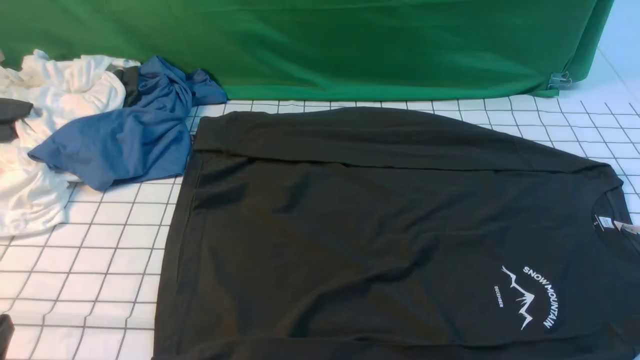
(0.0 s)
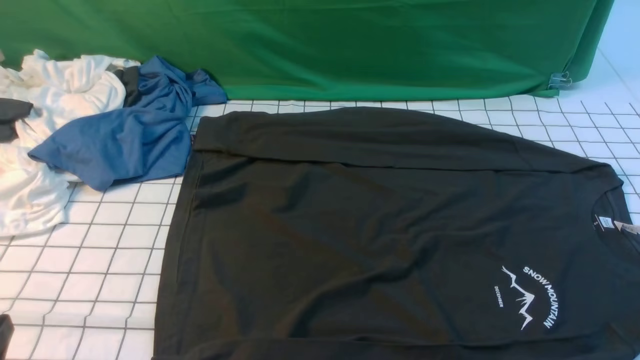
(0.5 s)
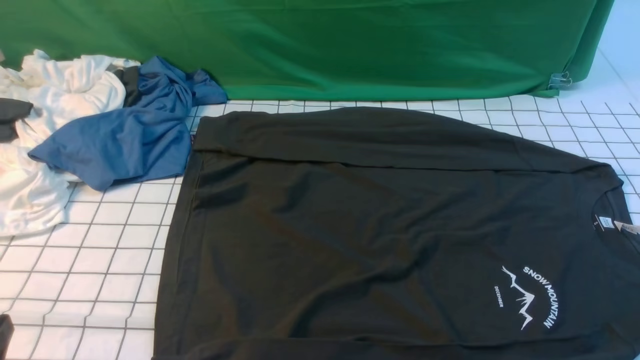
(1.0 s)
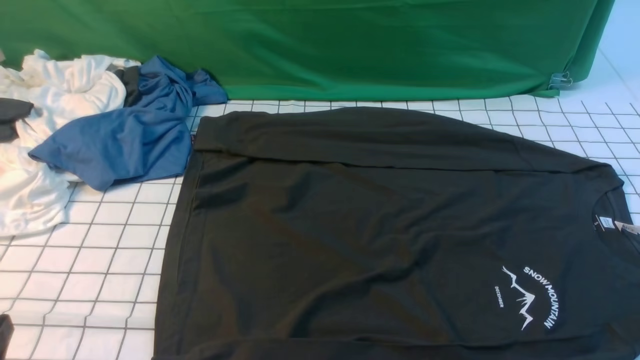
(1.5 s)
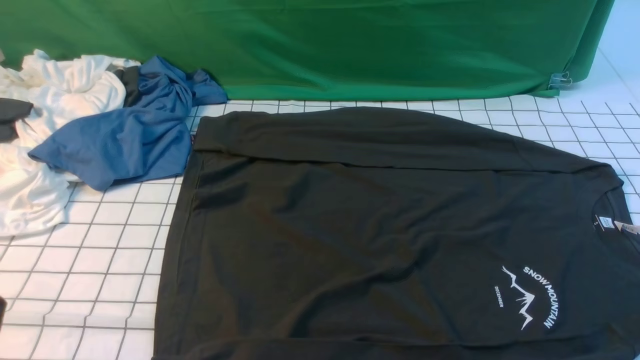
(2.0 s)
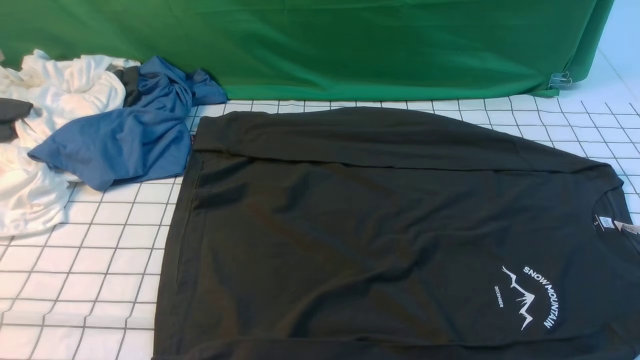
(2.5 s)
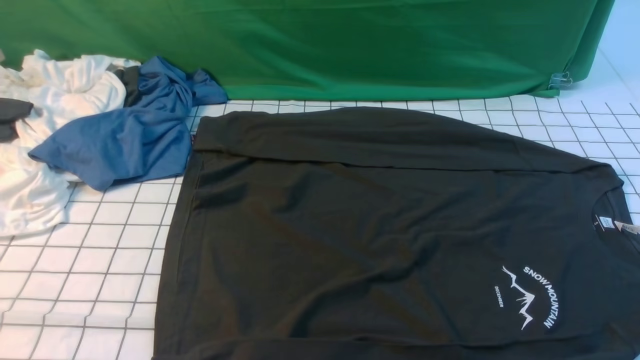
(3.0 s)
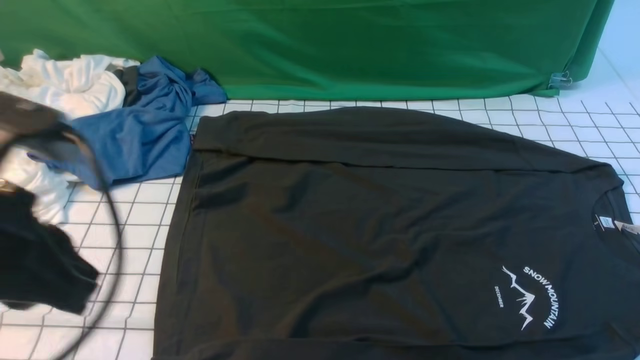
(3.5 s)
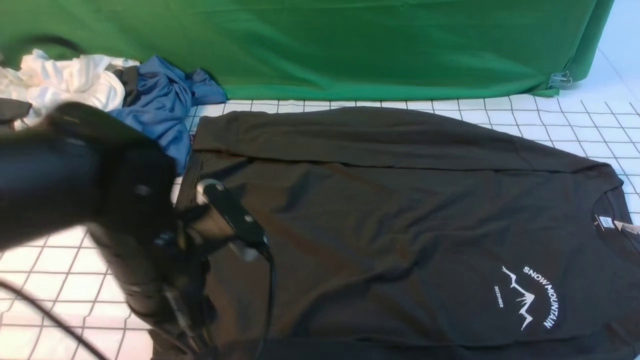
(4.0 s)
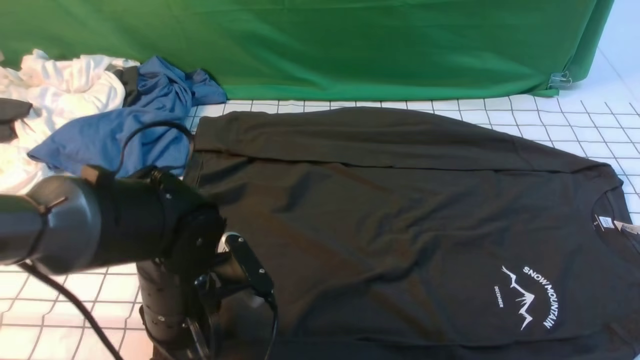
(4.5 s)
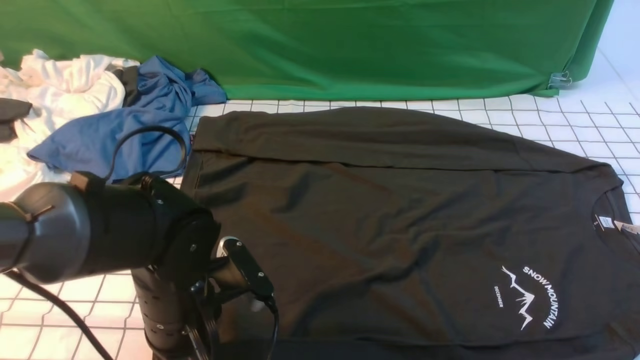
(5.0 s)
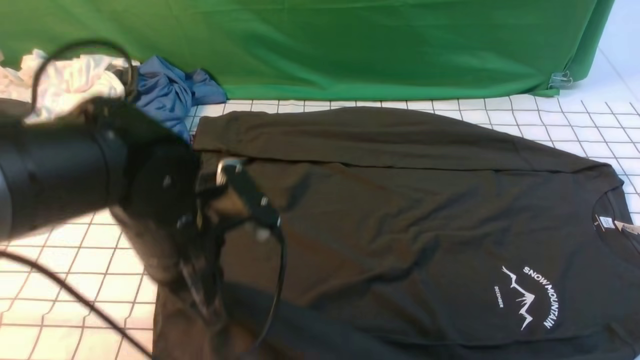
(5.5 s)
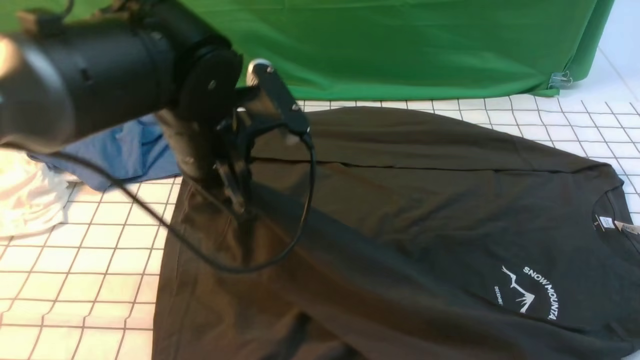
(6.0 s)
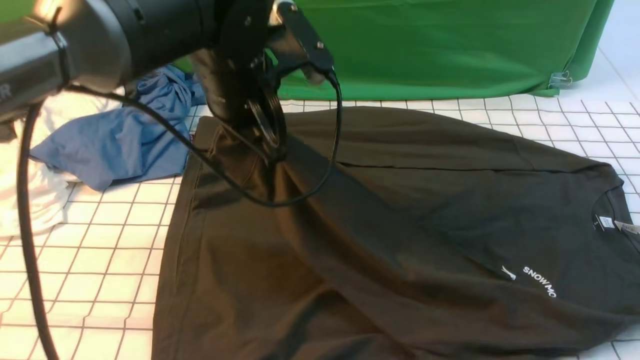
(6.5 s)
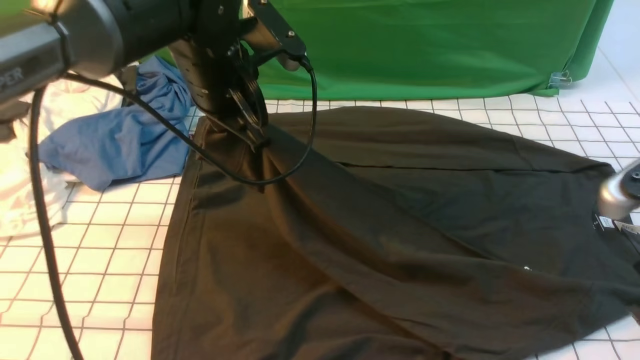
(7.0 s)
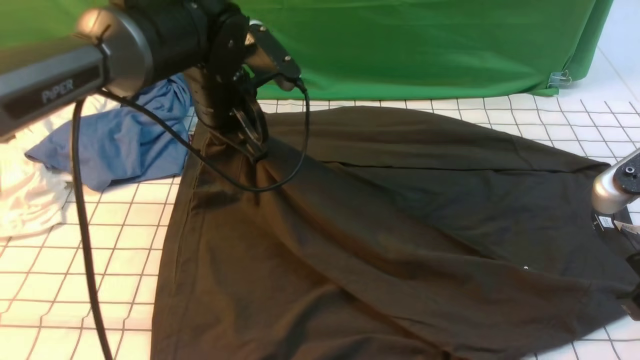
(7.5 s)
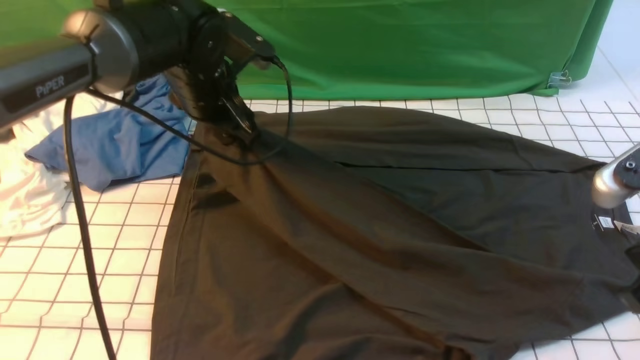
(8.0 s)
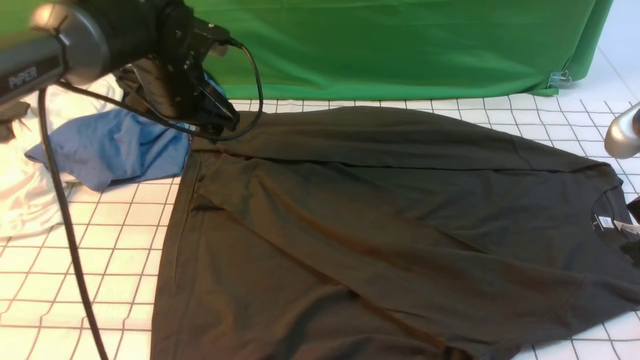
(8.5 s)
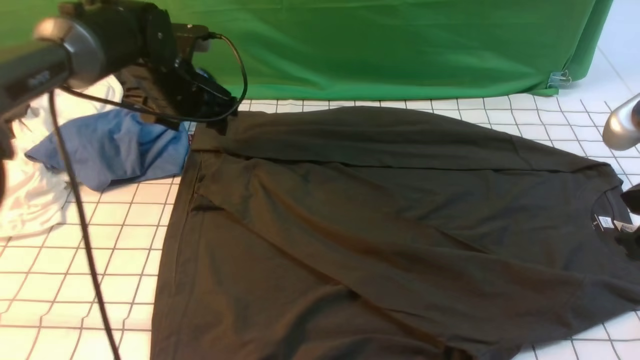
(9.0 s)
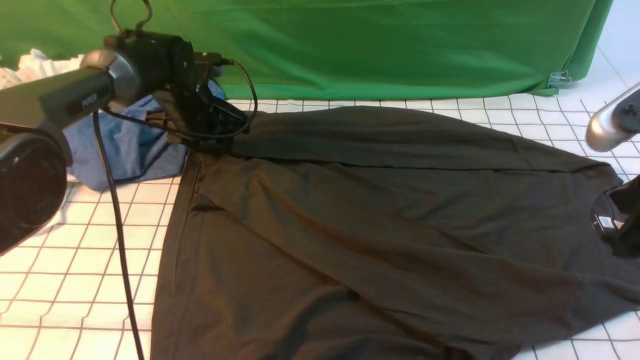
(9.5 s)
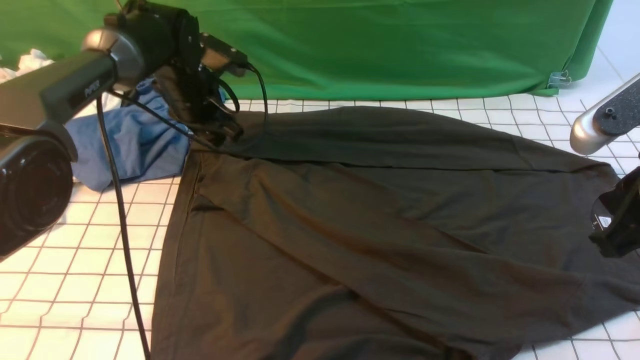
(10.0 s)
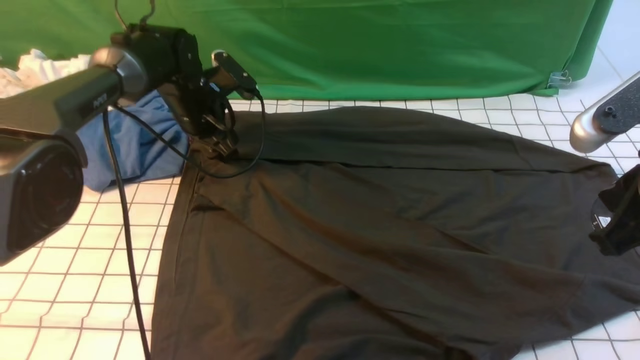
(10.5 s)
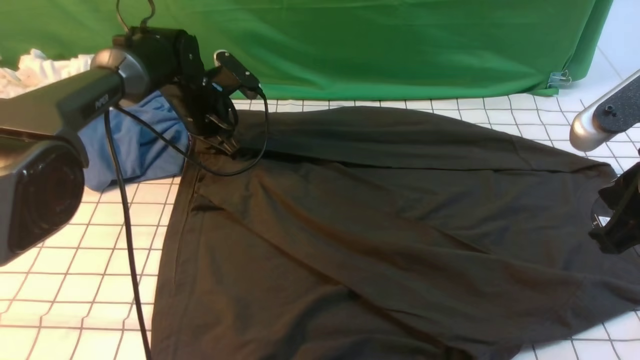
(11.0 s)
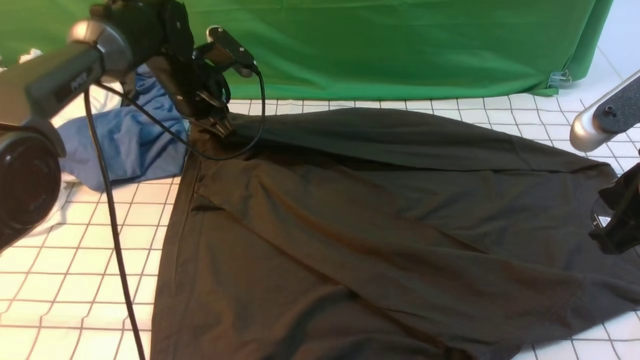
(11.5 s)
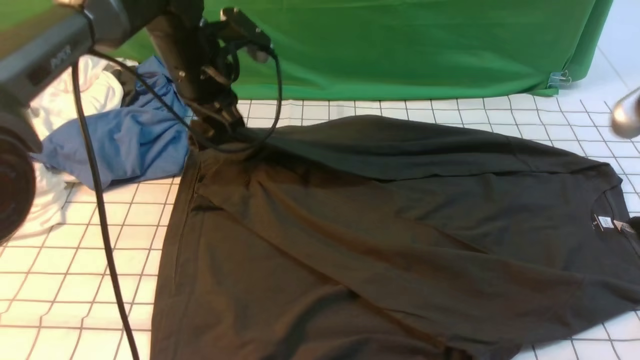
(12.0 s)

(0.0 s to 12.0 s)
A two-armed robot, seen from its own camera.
Step, 0.0 s - 5.0 s: use the left arm to clamp the cuff closest to it.
Step, 5.5 s - 8.0 s: use the left arm to drag and place the cuff at the centered position on the left edge of the fabric.
Step, 8.5 s - 11.0 s: use the left arm to clamp the cuff farthest from it.
2.0 s - 4.0 s: The left gripper travels forward and to the right by about 20 cm, and opens its fingers, while the right gripper is displaced upward by roughly 20 cm, and closes.
4.0 s - 6.0 s: The left gripper shifts roughly 10 cm forward and upward, and closes.
6.0 s - 8.0 s: The right gripper moves forward, some 5 cm. The left gripper goes about 10 cm forward, and opens up.
8.0 s - 10.0 s: The left gripper is displaced forward and downward by roughly 10 cm.
10.0 s - 12.0 s: The left gripper moves upward, some 10 cm, and closes up.

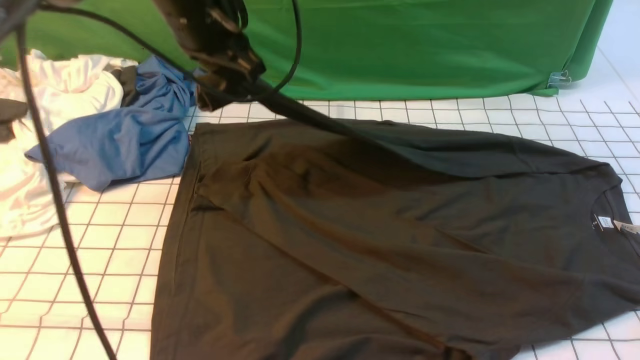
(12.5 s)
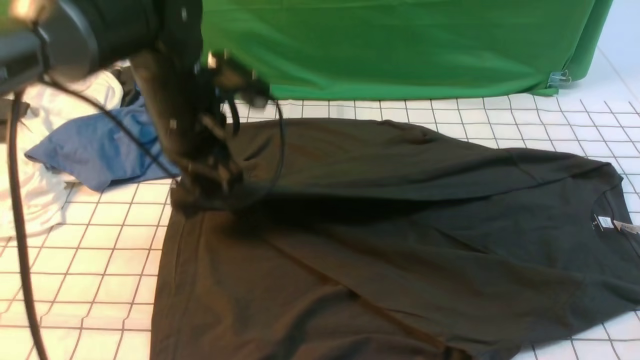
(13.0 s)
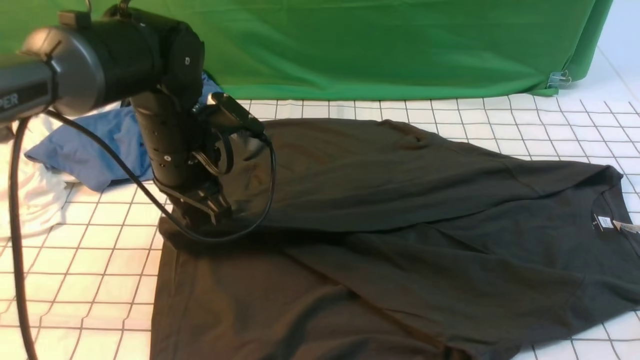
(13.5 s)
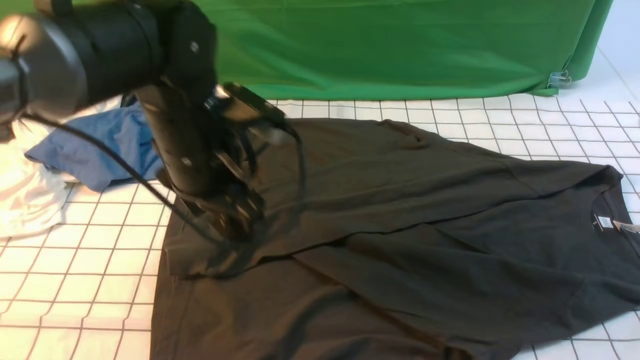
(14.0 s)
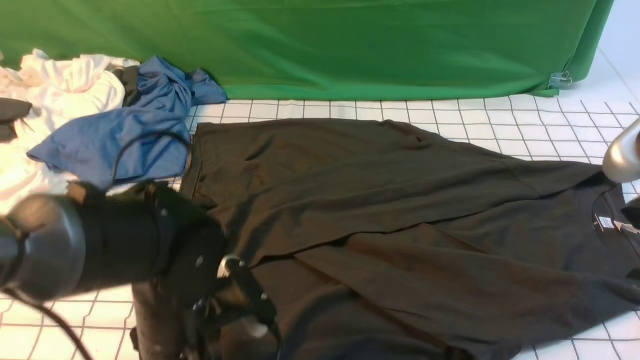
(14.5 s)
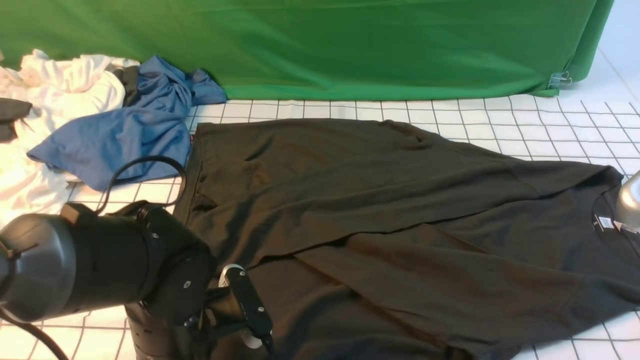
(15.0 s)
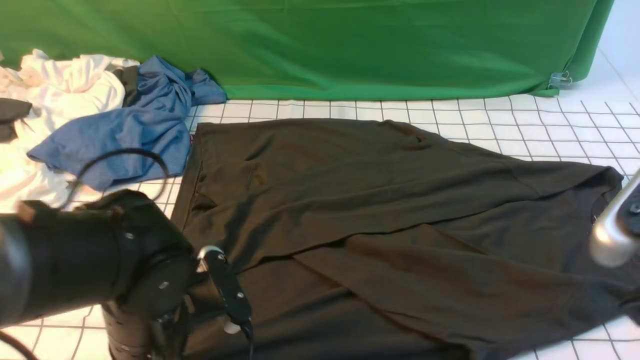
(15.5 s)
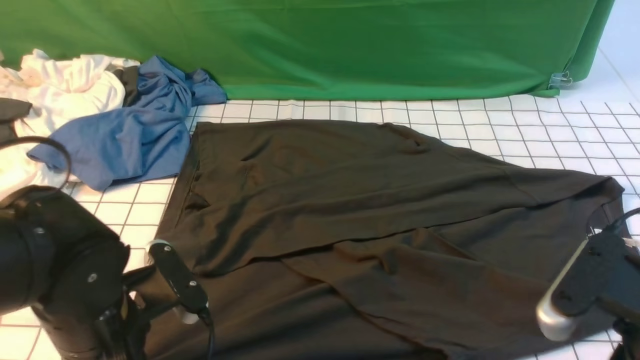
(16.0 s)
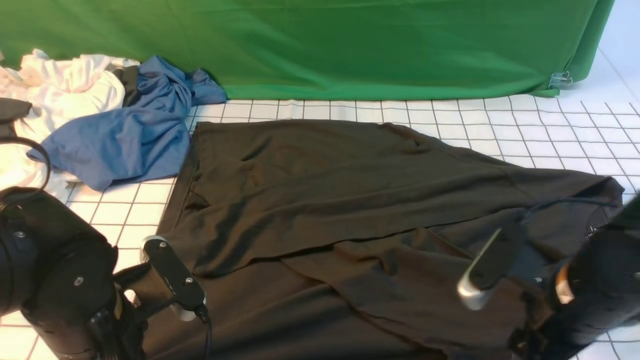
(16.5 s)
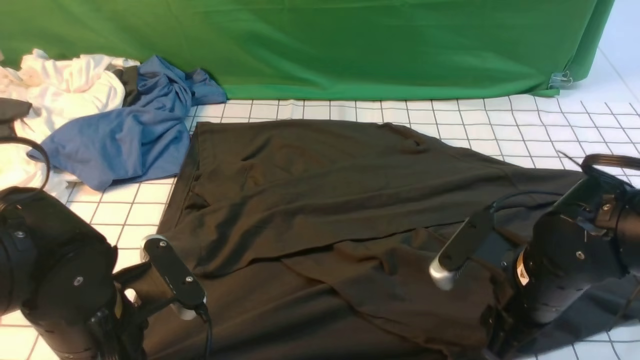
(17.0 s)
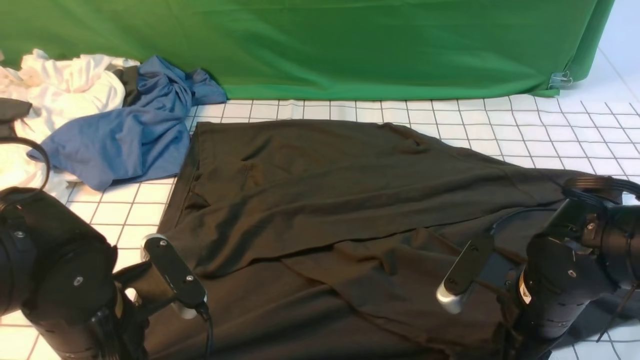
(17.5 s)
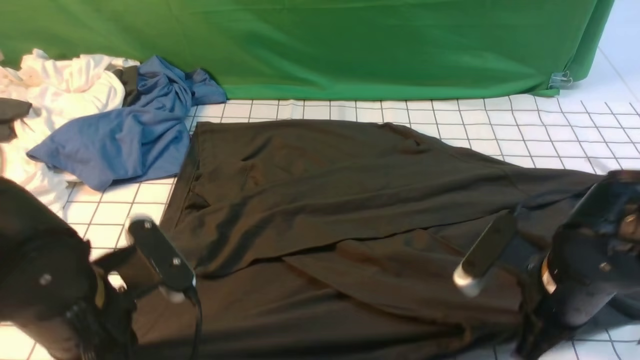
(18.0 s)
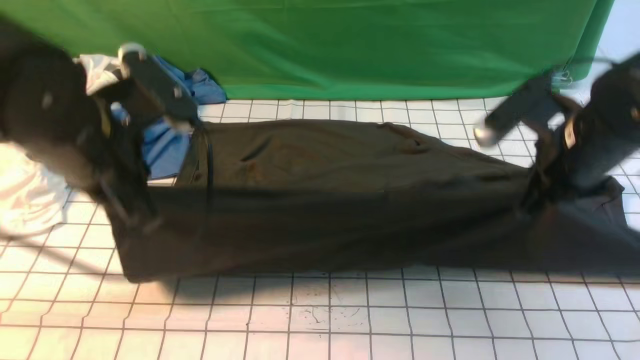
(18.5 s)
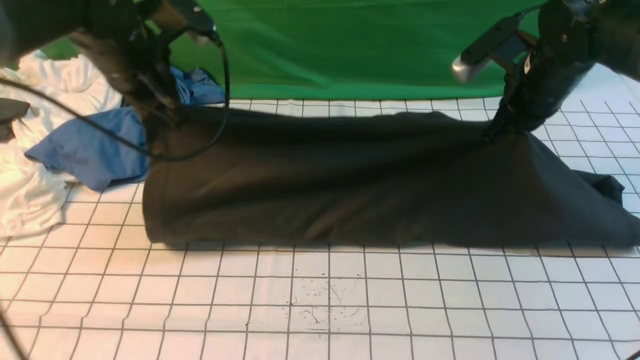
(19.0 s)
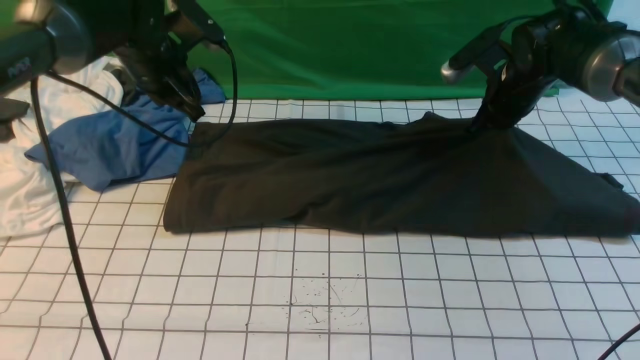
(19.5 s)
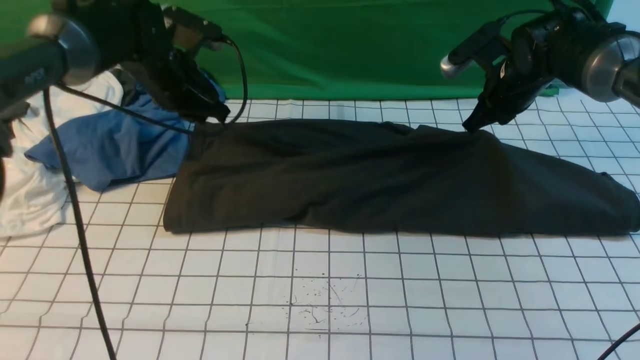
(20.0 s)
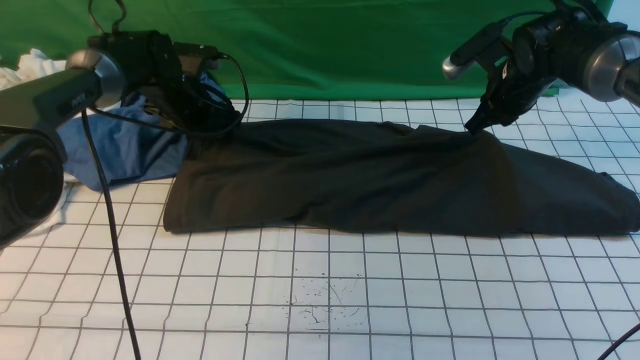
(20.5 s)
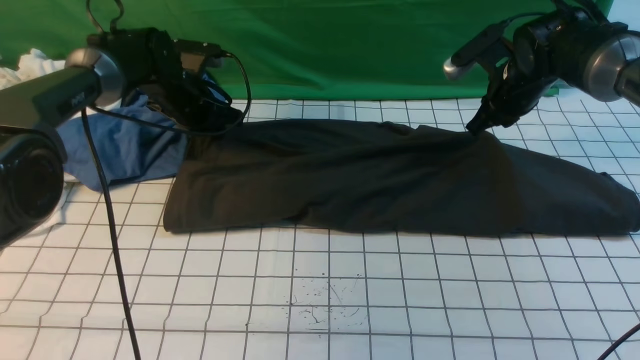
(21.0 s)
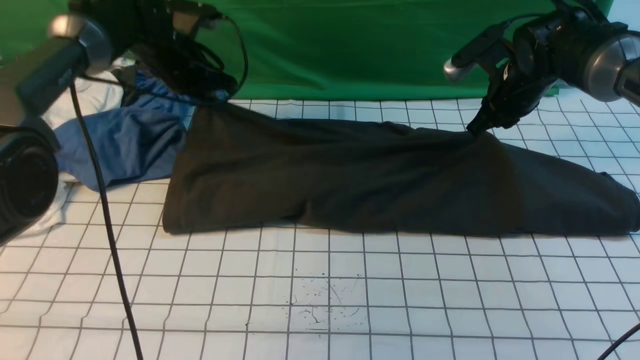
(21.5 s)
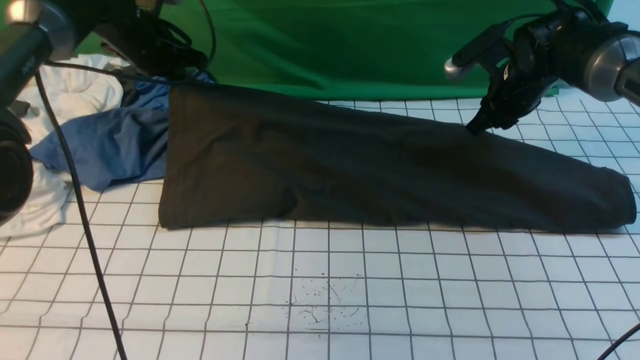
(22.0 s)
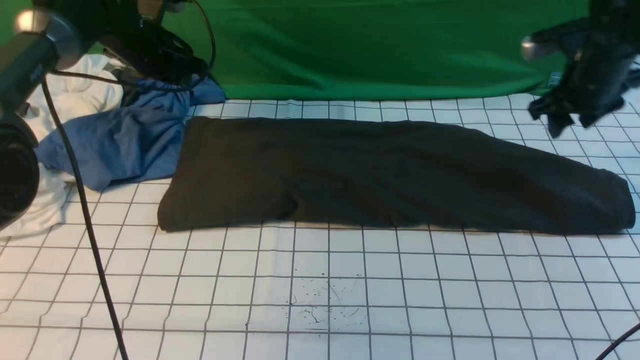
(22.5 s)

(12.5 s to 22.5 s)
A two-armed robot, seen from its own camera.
Step, 14.0 s - 17.5 s: use both arms simultaneously to clamp the lower edge of the clothing fabric.
Step, 18.0 s - 22.0 s: use both arms to drag the lower edge of the fabric forward and fold it over the upper edge.
12.5 s - 14.5 s: The left gripper shifts approximately 25 cm backward and downward, and opens its fingers.
14.5 s - 16.5 s: The left gripper moves to the left, roughly 5 cm, and closes. Meanwhile the right gripper heads downward, covering some 15 cm, and opens its fingers.
16.5 s - 18.5 s: The left gripper heads upward and forward, covering approximately 15 cm, while the right gripper travels forward and upward by about 15 cm, and closes up.
18.5 s - 20.5 s: The left gripper shifts some 25 cm forward and downward, and opens up. The right gripper is displaced forward by about 15 cm.
20.5 s - 22.5 s: The right gripper moves to the right, about 10 cm, and opens up, while the left gripper travels upward by some 10 cm, and closes and opens again.
